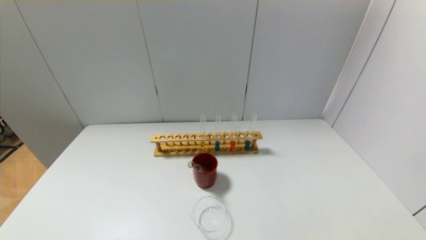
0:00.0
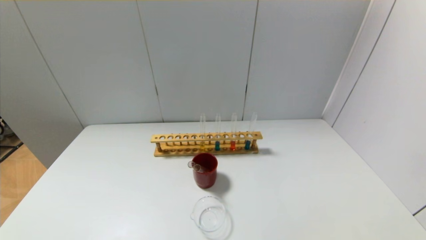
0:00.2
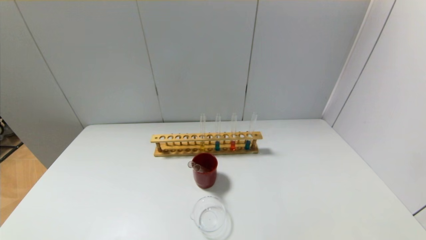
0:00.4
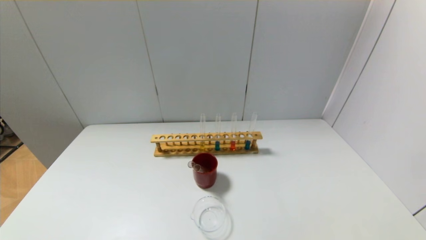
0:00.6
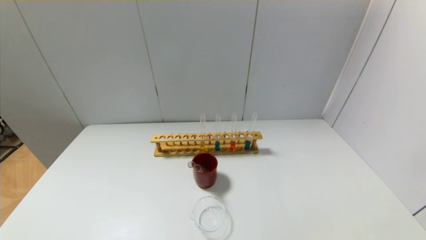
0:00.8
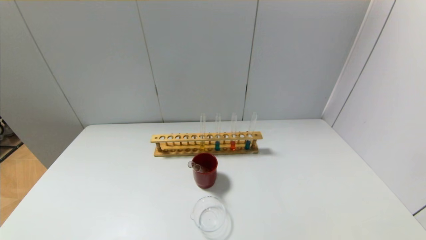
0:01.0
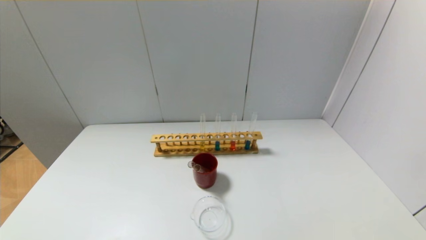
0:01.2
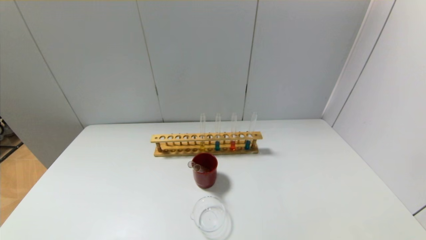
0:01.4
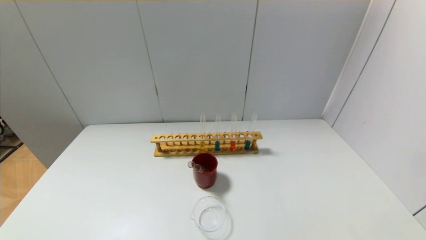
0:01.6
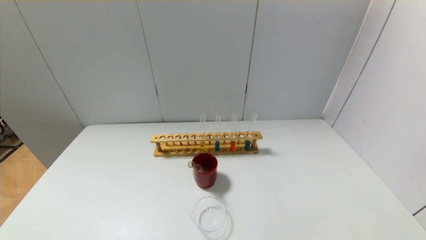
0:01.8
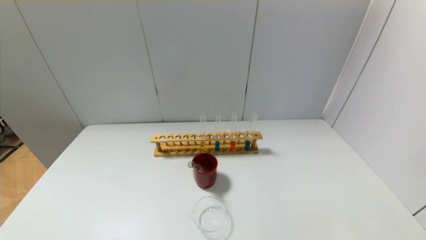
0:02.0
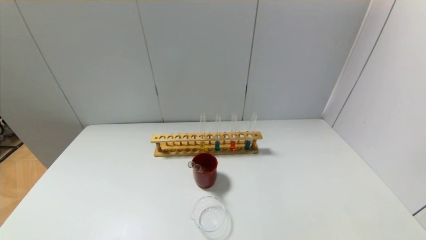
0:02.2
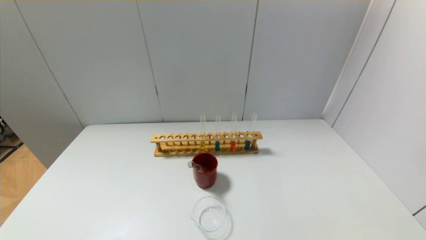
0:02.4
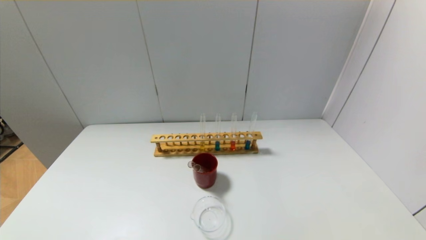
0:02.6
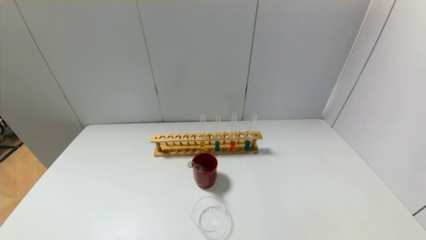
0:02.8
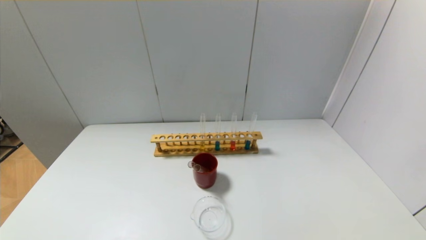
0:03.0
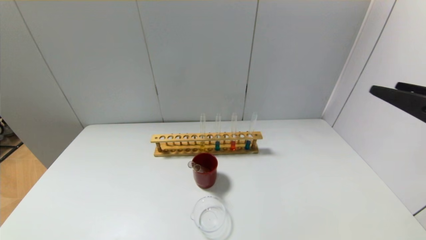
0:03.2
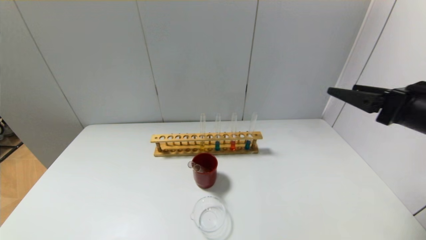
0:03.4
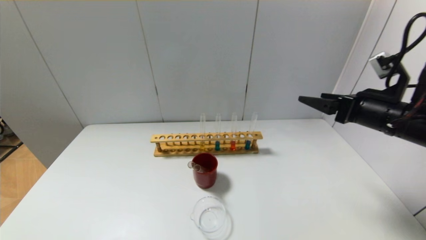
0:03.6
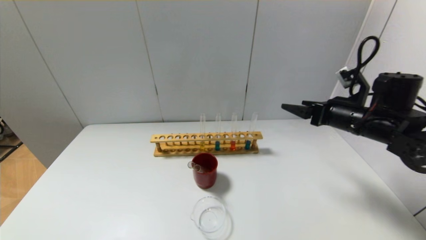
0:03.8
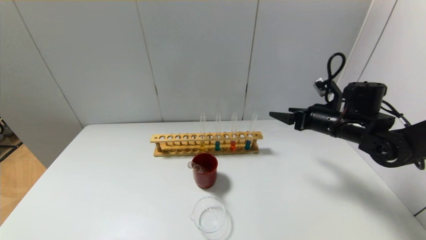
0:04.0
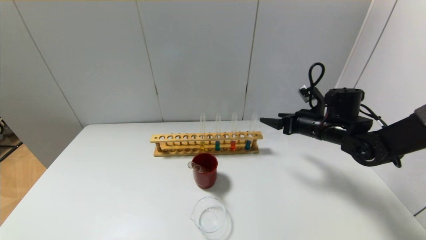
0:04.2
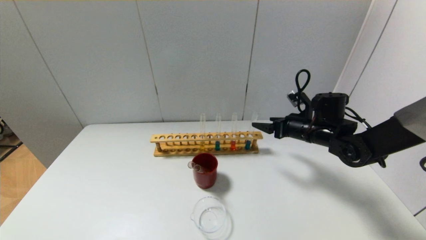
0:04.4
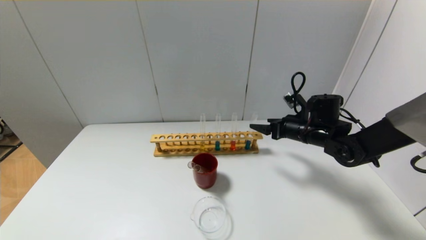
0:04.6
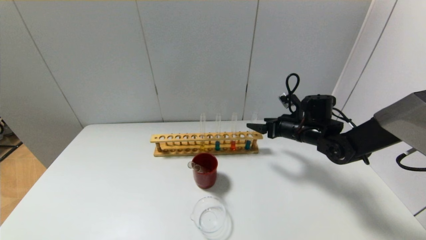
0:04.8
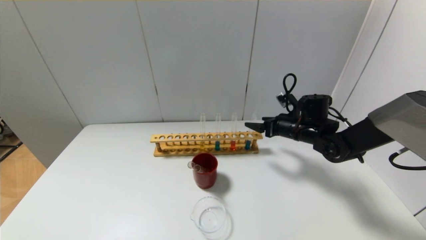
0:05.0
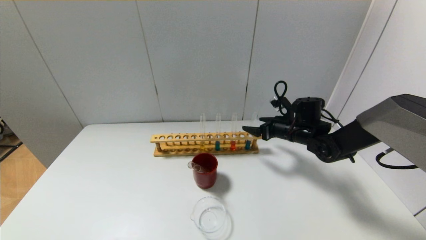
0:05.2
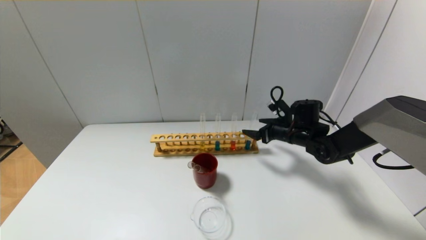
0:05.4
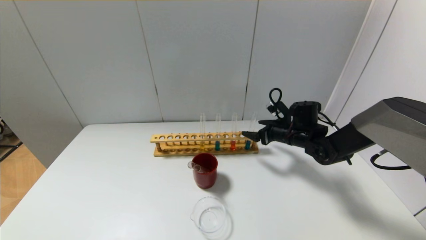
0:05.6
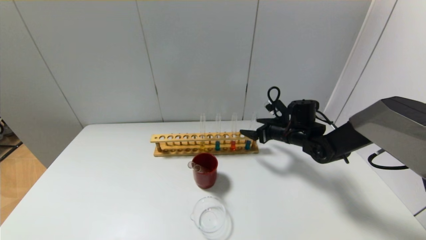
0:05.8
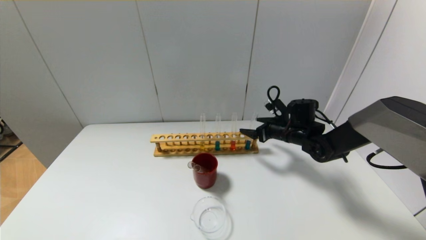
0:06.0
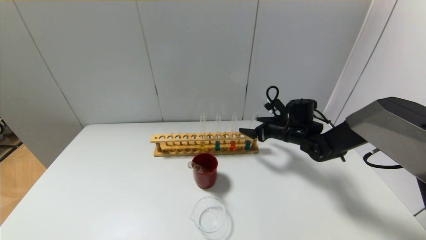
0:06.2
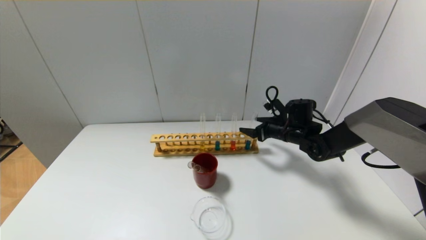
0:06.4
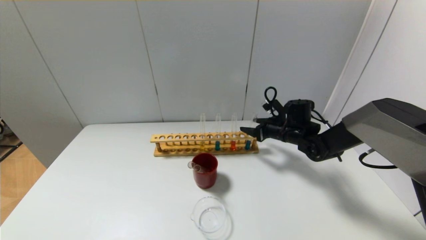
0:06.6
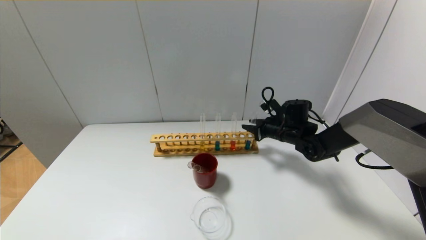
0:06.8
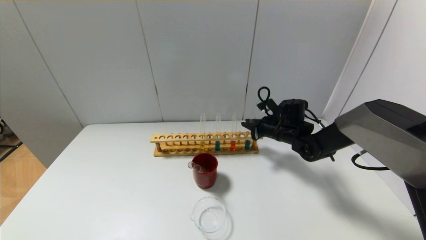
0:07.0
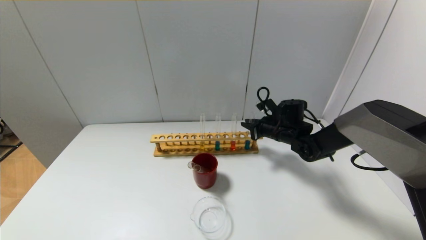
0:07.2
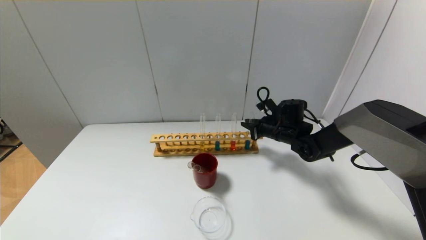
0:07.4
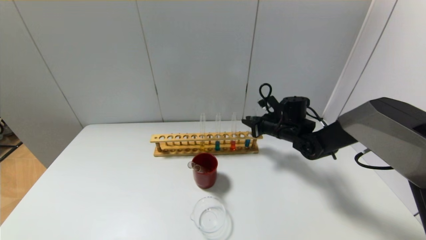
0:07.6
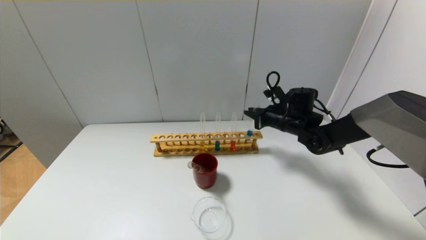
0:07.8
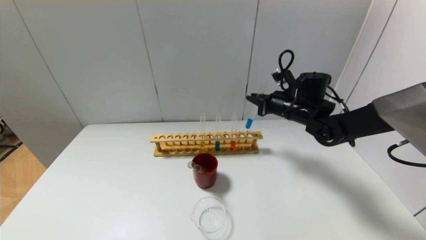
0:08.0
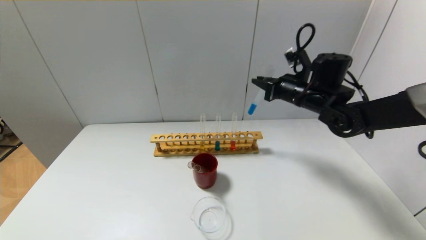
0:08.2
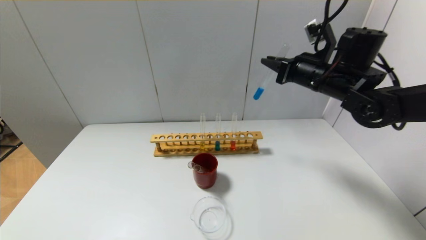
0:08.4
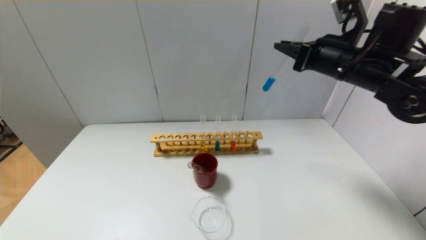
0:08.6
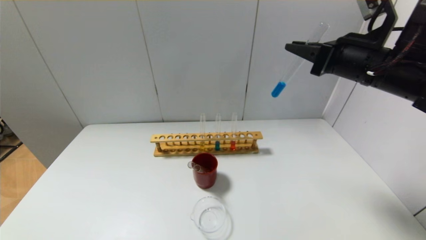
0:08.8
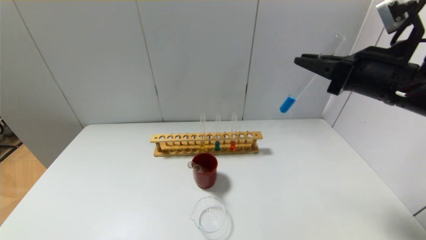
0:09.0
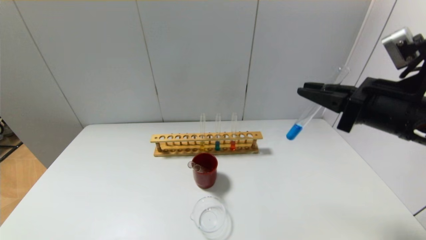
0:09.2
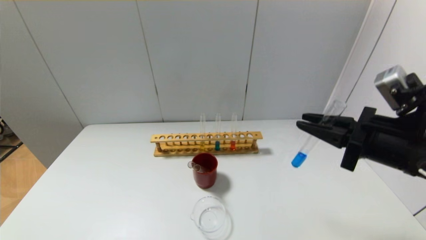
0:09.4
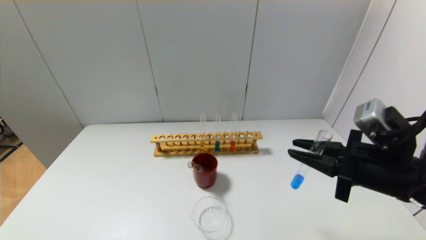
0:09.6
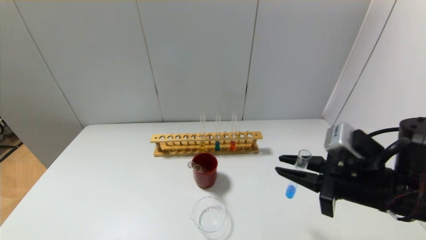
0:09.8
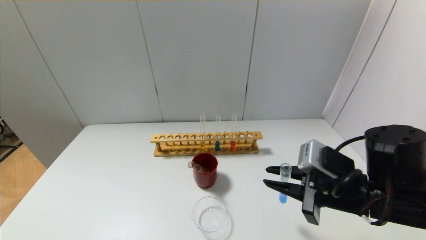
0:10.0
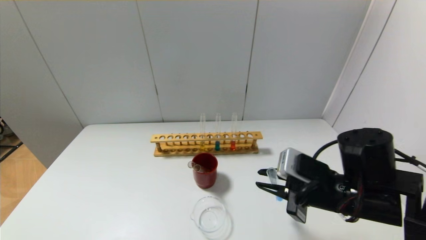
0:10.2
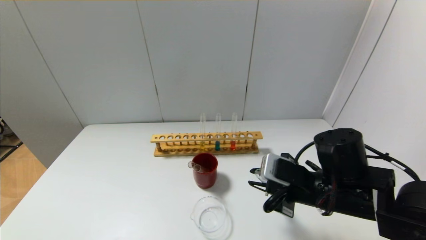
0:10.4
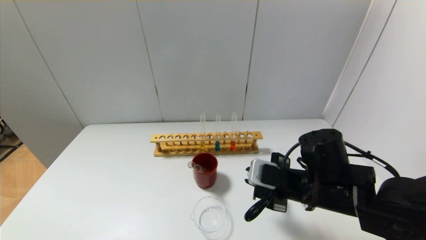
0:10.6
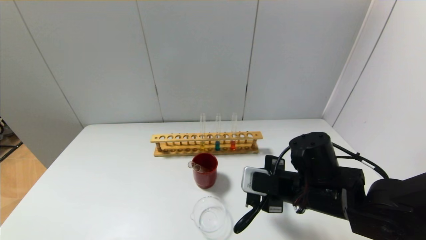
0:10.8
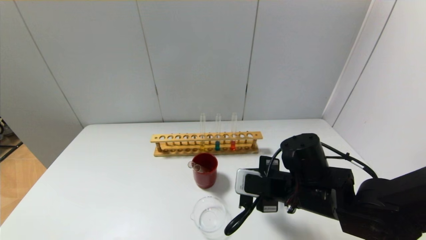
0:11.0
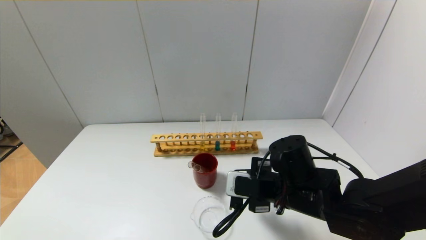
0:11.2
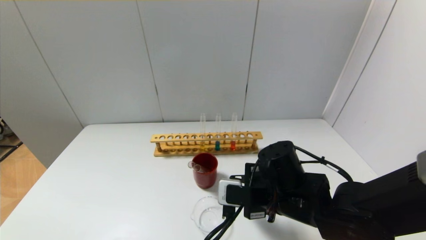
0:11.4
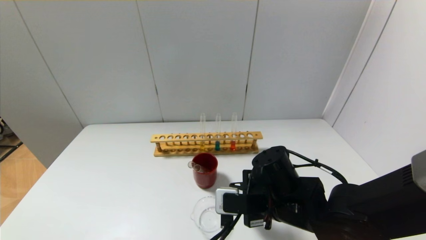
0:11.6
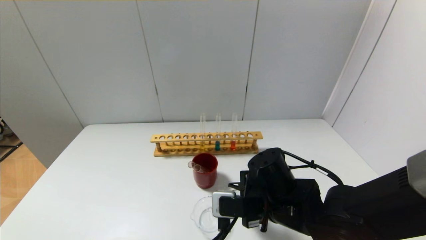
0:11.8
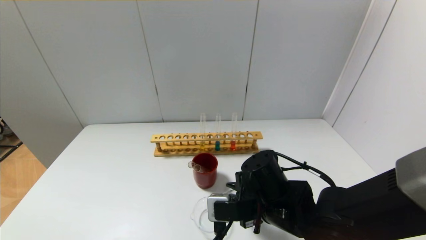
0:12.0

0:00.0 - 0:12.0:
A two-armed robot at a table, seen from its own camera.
Step, 0:00.0 - 0:07.2: Grasp the blue reagent with the right gripper.
0:03.0 - 0:04.4: The right gripper is displaced forward and downward by roughly 35 cm.
0:04.4 - 0:06.0: The right gripper changes place by approximately 5 cm.
0:06.0 - 0:07.6: The right gripper closes up.
0:07.6 - 0:09.0: The right gripper goes some 25 cm backward and upward.
0:09.0 - 0:10.4: The right gripper goes about 20 cm downward and to the left.
0:10.4 - 0:12.0: The right gripper travels to the left by roughly 10 cm.

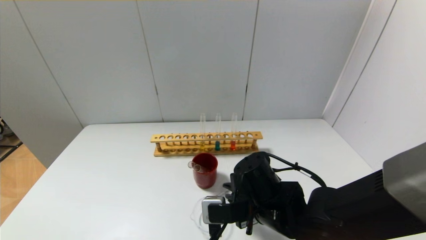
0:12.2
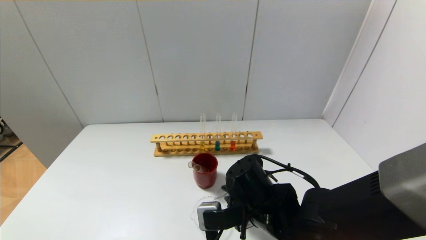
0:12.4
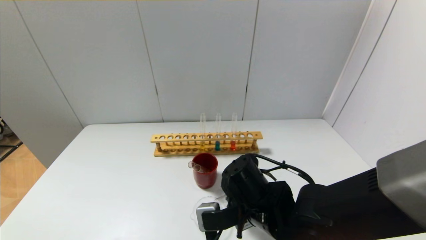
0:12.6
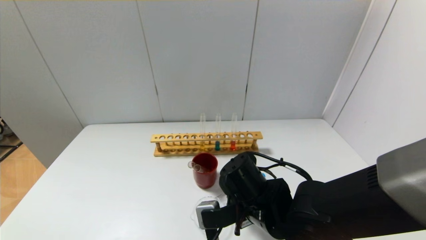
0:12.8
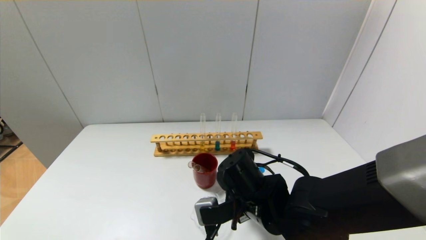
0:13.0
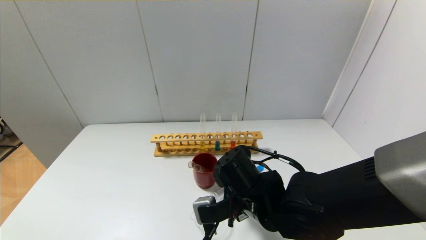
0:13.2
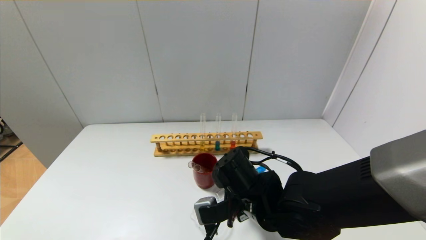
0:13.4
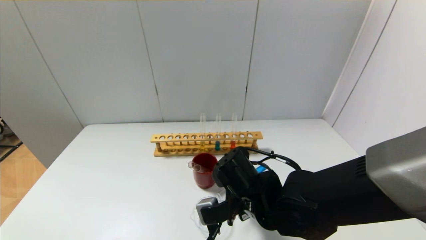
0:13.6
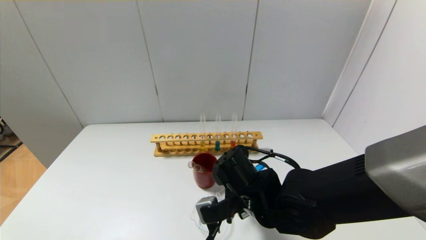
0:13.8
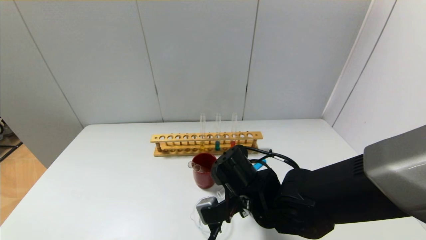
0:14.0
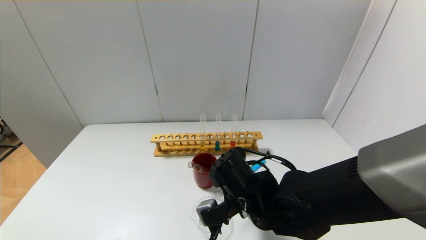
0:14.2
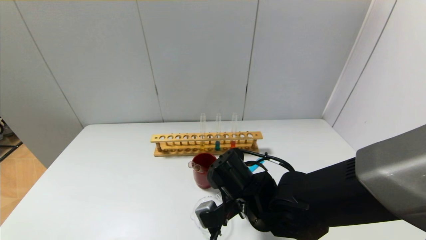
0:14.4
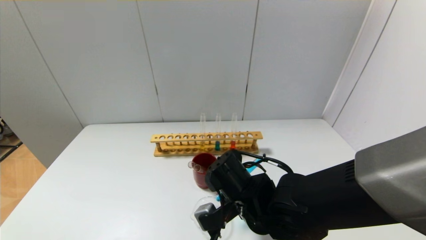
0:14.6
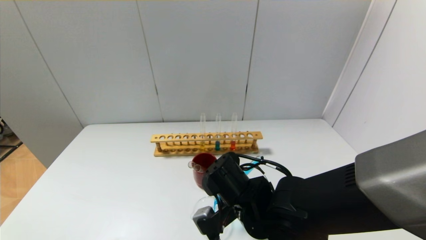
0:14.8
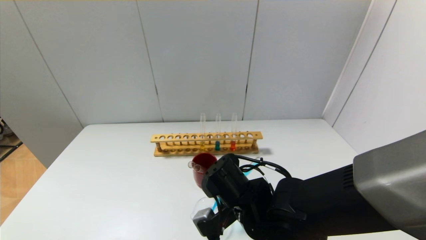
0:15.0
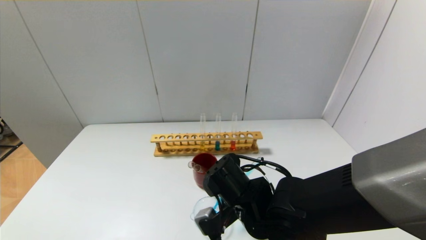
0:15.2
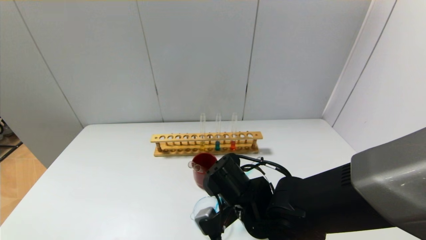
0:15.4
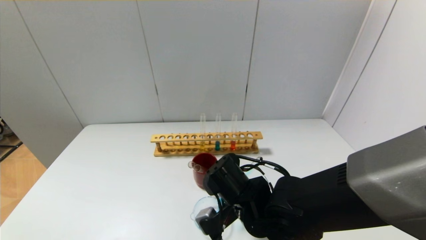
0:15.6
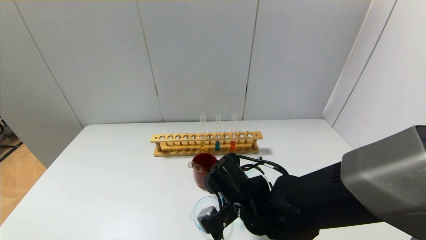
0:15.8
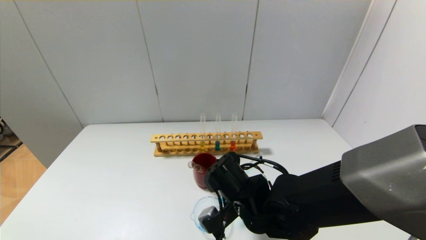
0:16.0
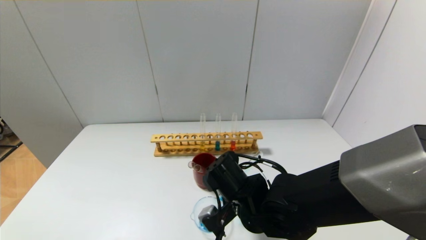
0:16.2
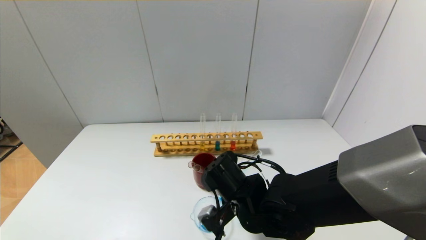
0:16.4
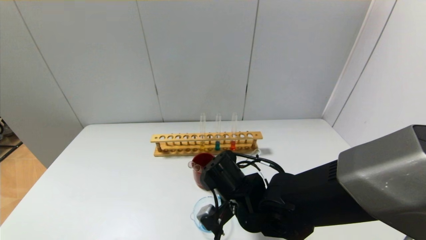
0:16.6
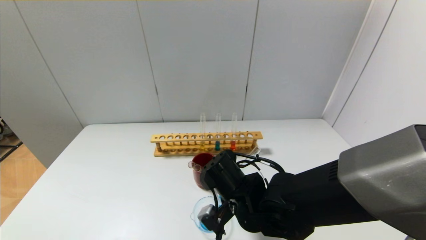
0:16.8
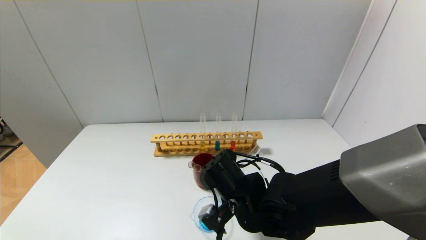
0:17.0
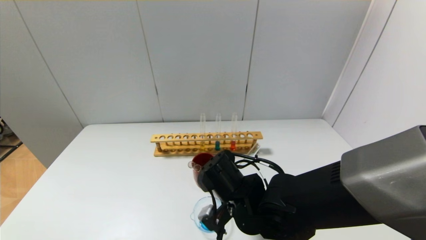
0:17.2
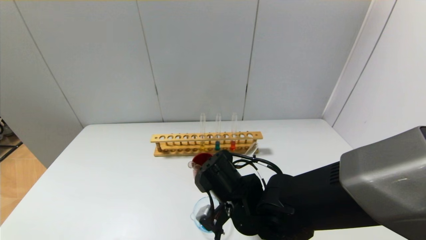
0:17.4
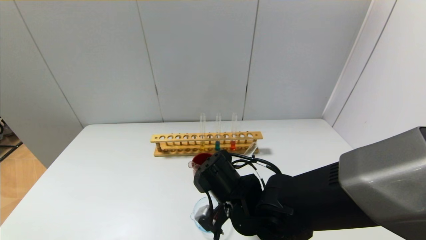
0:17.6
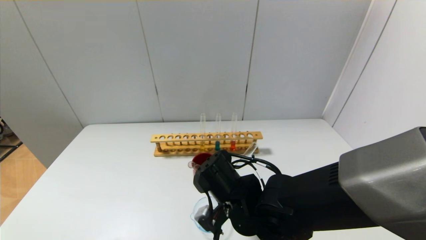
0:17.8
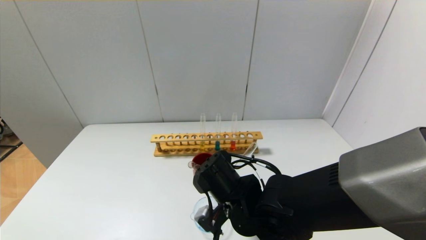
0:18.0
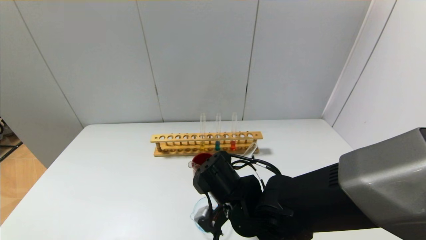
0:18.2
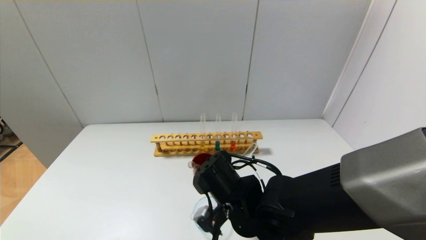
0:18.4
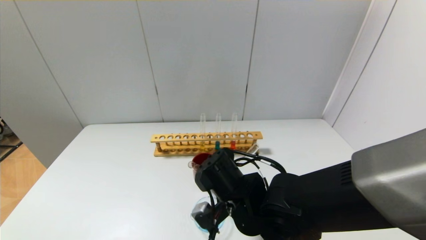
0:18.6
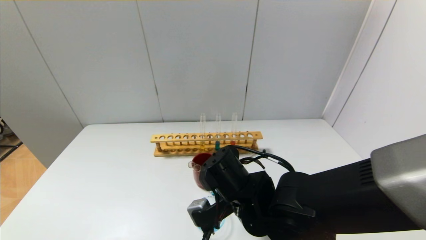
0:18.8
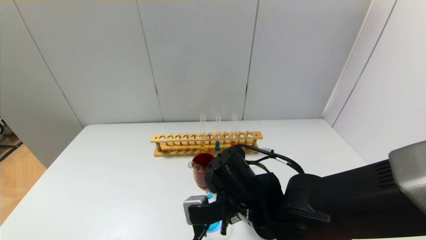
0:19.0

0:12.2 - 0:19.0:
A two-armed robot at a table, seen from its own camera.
Step, 0:12.2 - 0:18.6: Pour the blue reagent into the graduated cylinder with the right gripper.
0:12.2 - 0:13.6: The grippers make only small movements.
0:13.6 - 0:16.2: The grippers stay close to where they were, moving slightly.
0:16.2 - 0:17.6: There are only small adjustments of the grippers.
